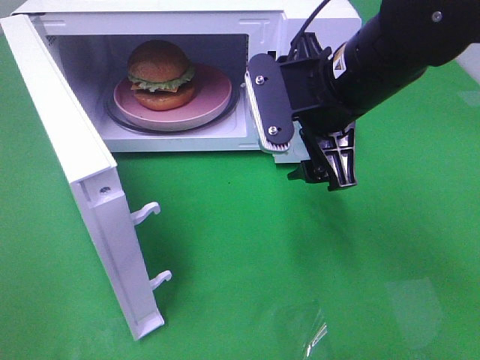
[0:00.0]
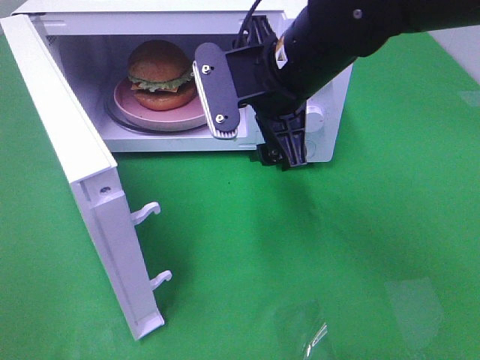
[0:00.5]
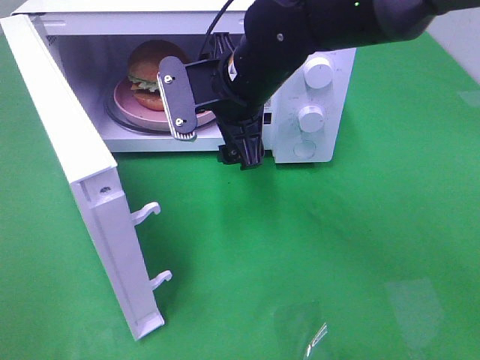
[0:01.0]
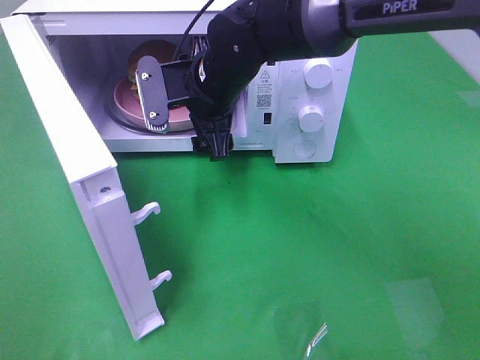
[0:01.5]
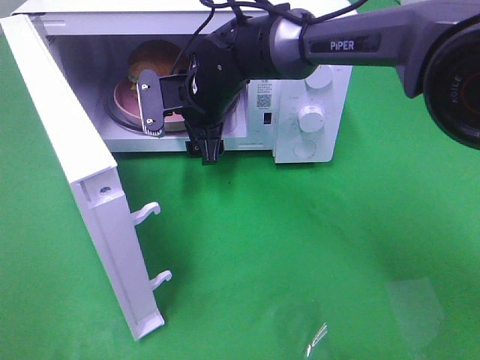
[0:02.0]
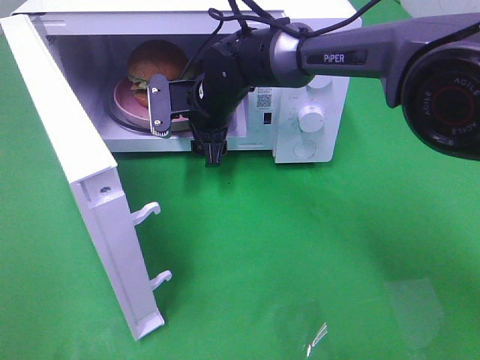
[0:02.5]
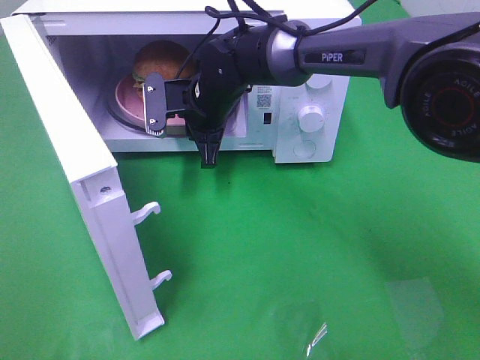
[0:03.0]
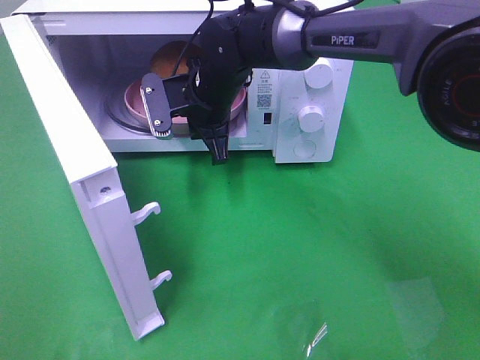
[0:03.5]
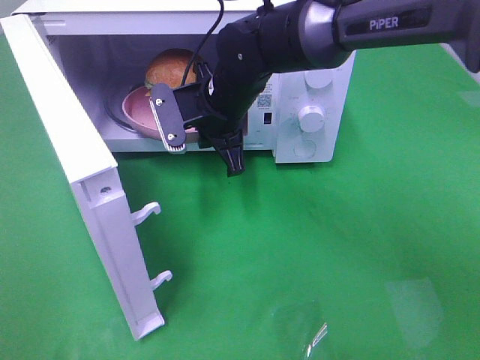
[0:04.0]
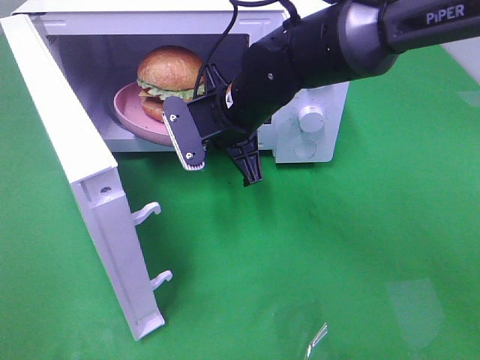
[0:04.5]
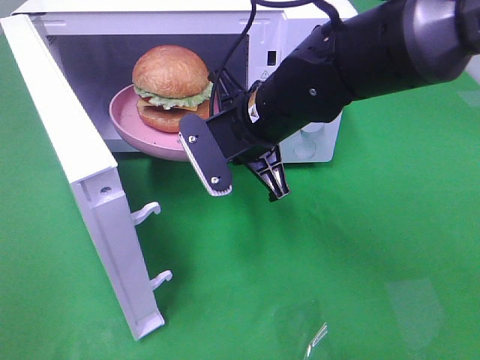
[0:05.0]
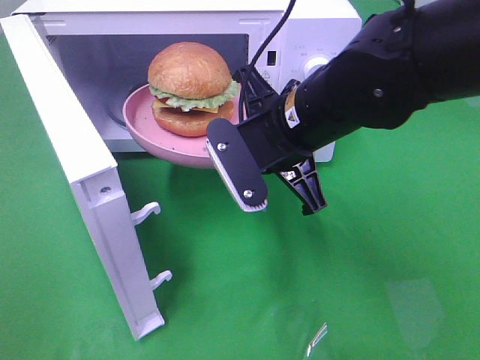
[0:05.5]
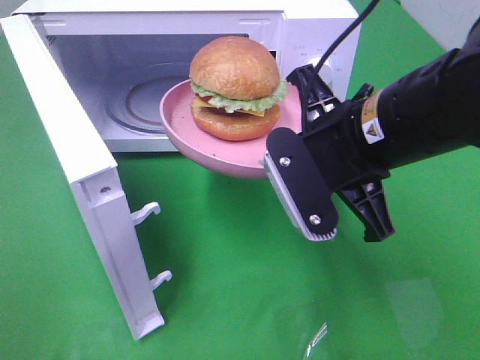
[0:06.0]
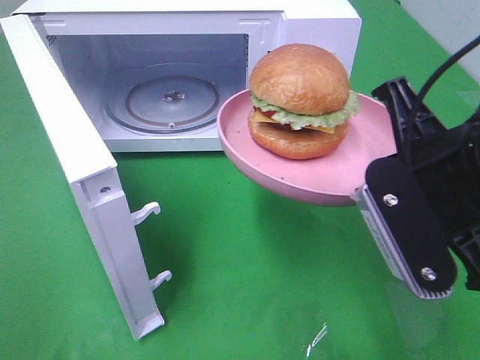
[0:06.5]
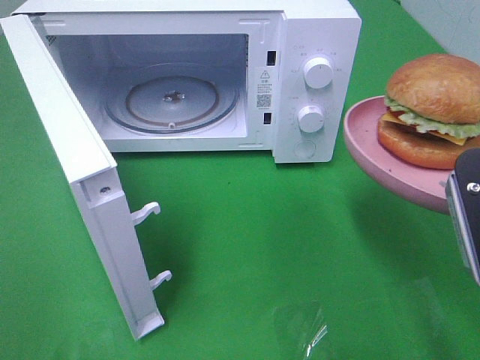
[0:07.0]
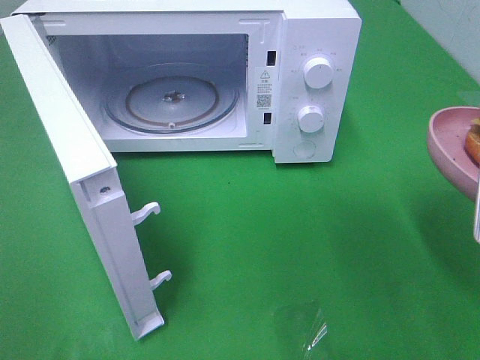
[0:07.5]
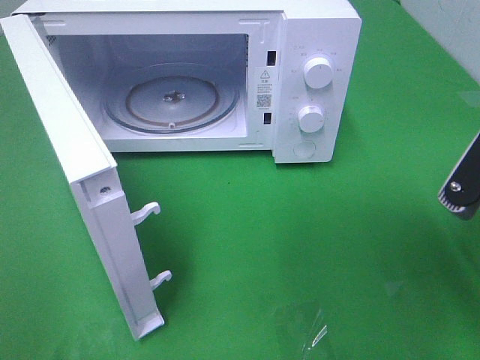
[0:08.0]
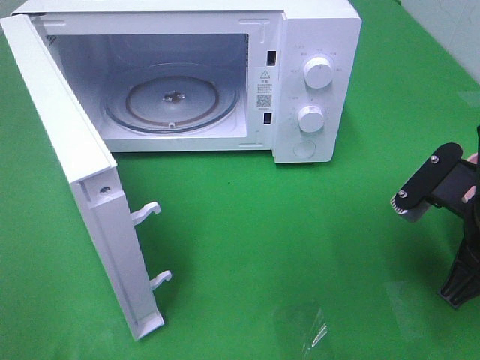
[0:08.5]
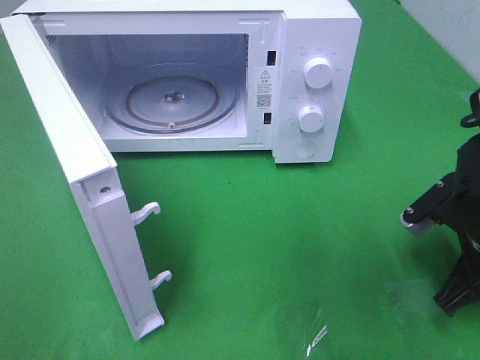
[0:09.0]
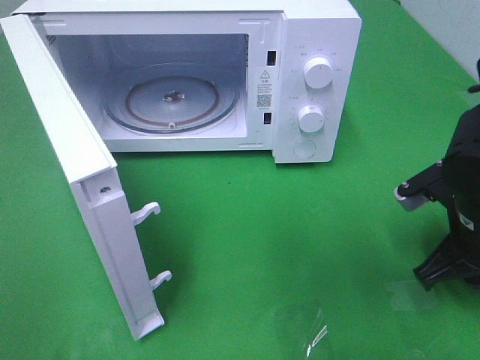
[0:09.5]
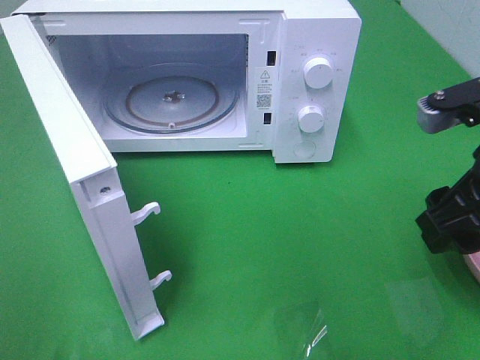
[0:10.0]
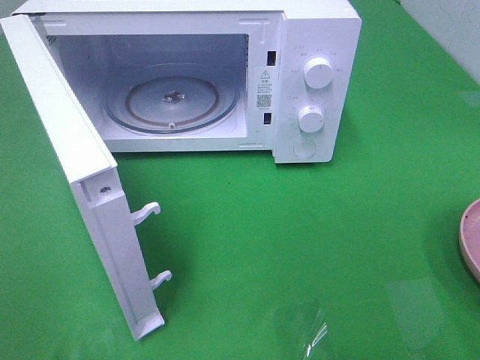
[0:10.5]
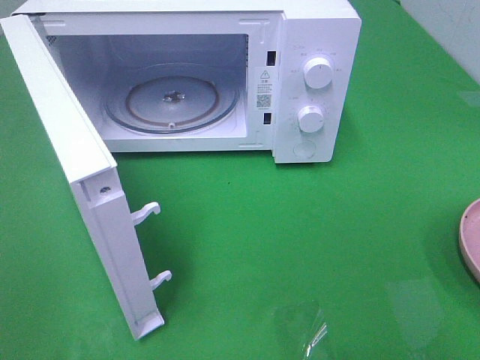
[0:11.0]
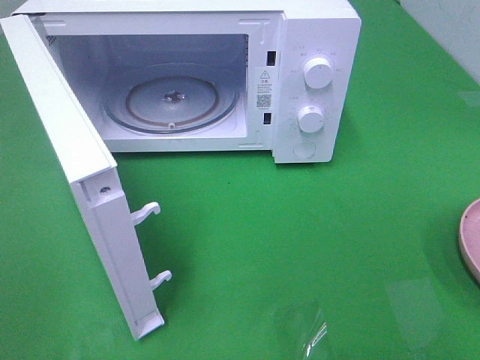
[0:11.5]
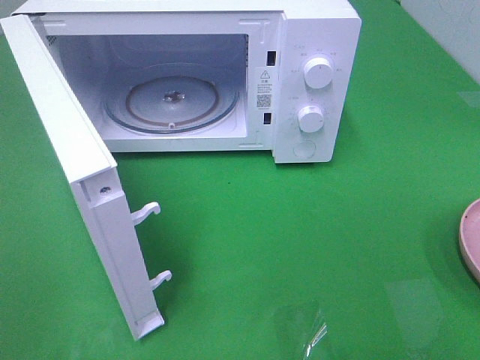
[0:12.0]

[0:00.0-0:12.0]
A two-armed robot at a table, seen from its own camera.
Task of the whole recording: Heat the burger.
Step, 0.0 to 3.0 s: Right hand: grab the plate with the hamburger.
Step, 3.5 to 9.5 s: Right hand: place the plate on the table.
0.0 to 2.0 s: The right gripper goes roughly 20 cm forward, to the left and downward.
2.0 to 4.0 s: The right gripper closes up.
4.0 to 6.0 s: The right gripper goes roughly 20 cm backward, to the right and upward.
6.0 to 8.0 s: The right gripper is displaced to the right and backward by approximately 15 cm.
8.0 to 10.0 s: The right gripper goes downward and returns, roughly 10 cm each way, and opens up.
10.0 to 12.0 s: The right gripper travels backward by approximately 20 cm.

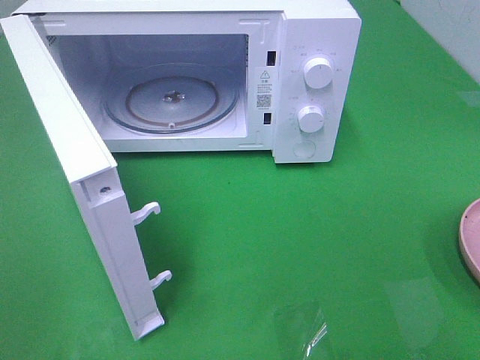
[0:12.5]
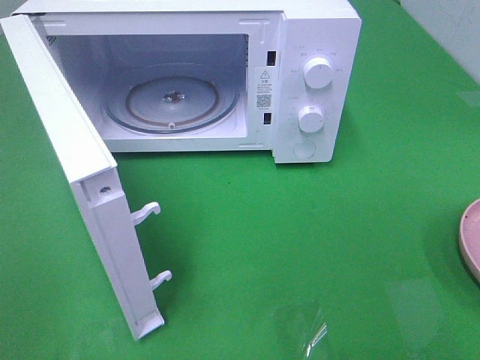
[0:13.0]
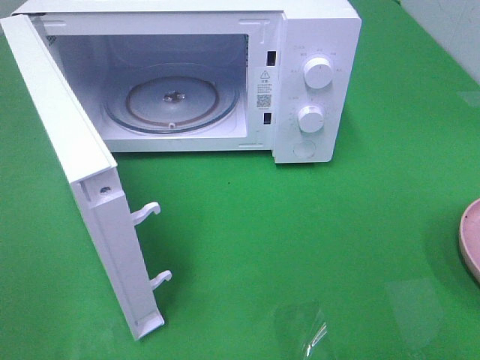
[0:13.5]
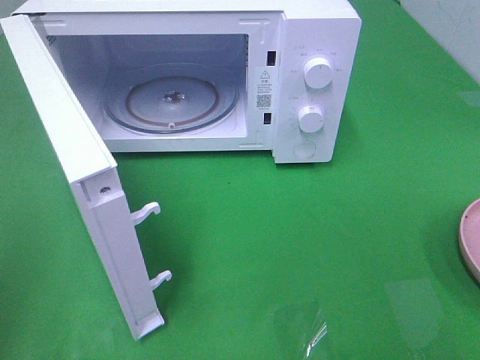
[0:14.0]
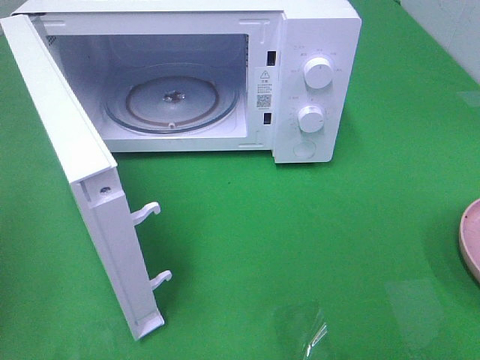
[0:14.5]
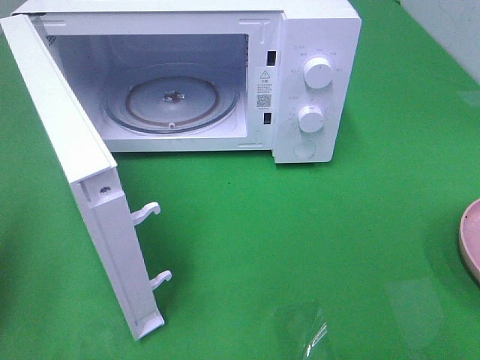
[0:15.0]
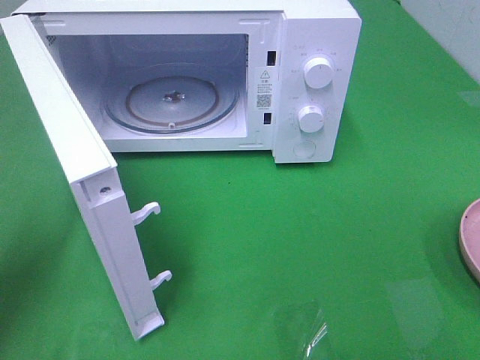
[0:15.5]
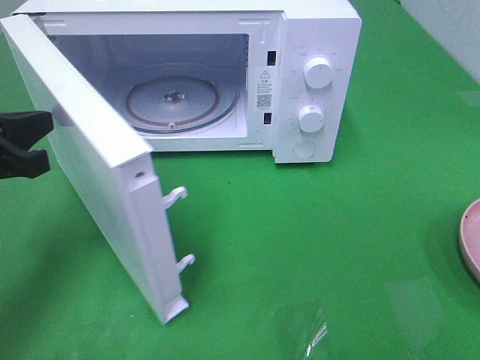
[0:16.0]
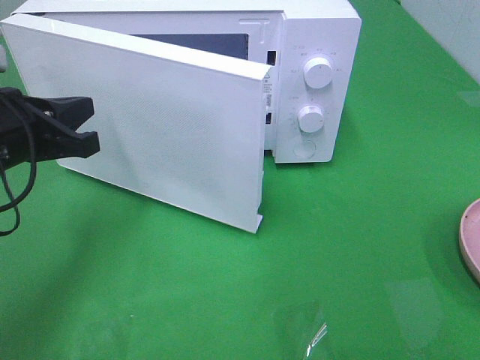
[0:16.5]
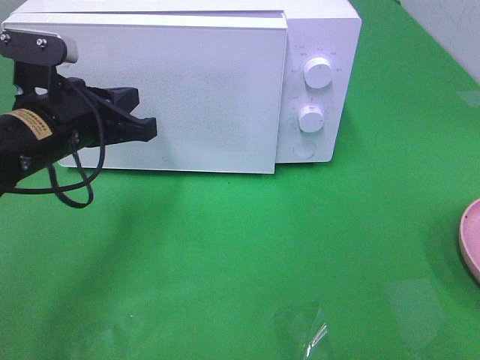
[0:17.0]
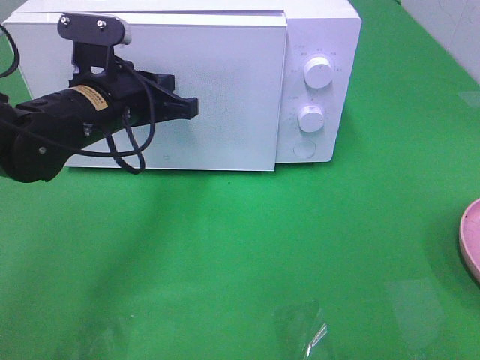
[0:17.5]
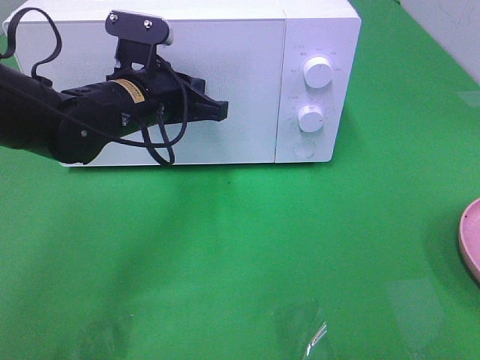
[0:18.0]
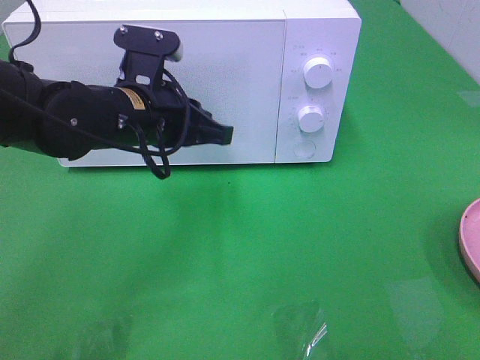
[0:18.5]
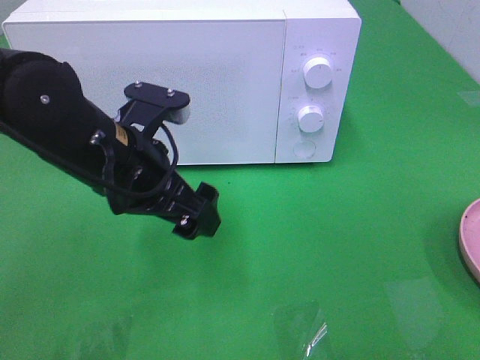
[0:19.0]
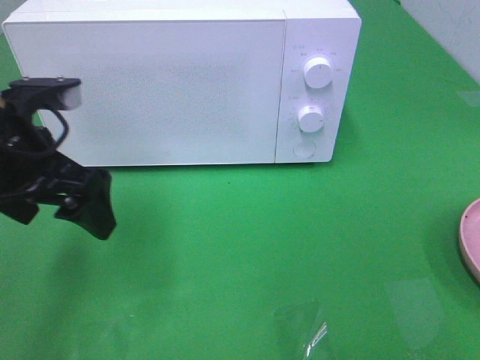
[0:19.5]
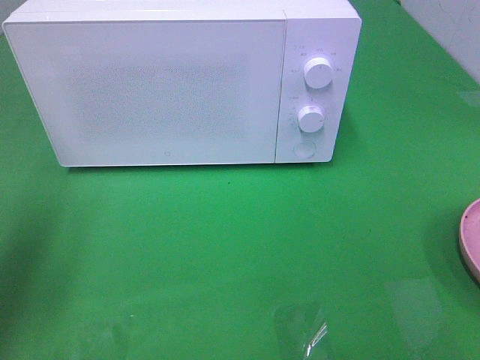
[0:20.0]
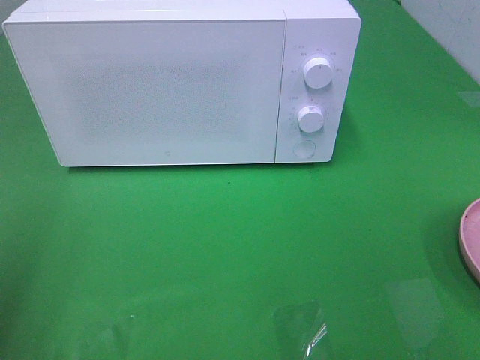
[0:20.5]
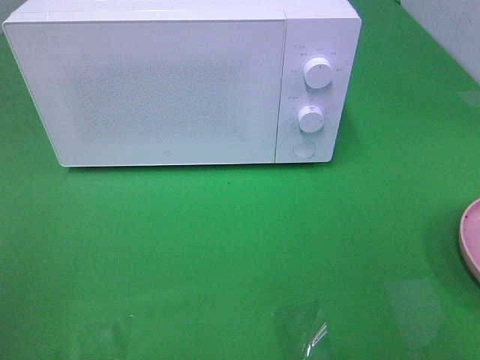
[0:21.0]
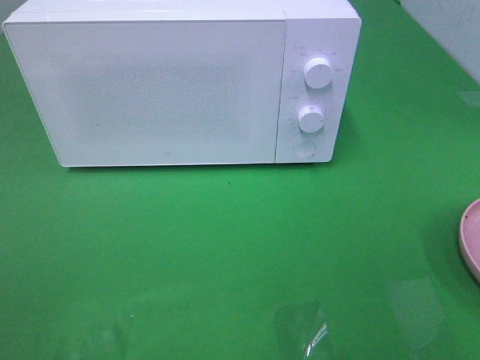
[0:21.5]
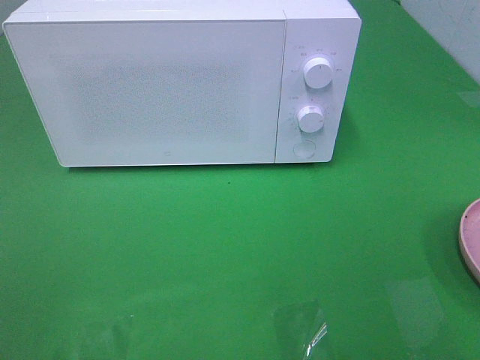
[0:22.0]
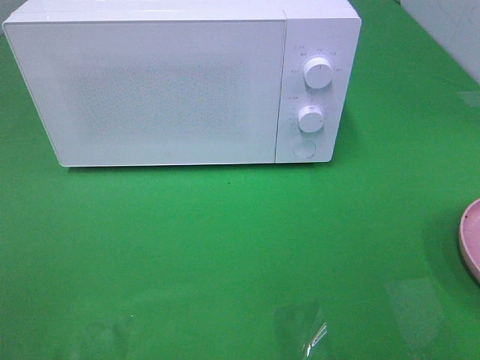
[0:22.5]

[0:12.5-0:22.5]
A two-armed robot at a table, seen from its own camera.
Task of the whole recording: Heat the burger.
Step, 12.5 to 18.5 s: Left hand: close the microwave door.
14.5 to 16.5 s: The left gripper moves forward, to the right and downward, approximately 20 cm.
16.5 to 18.5 s: The left gripper is displaced to the right by roughly 10 cm.
18.5 to 20.5 s: The left gripper is displaced to the left, backward and upward by some 30 cm, and opens its fingers.

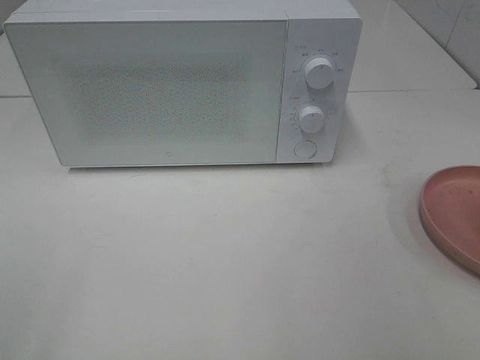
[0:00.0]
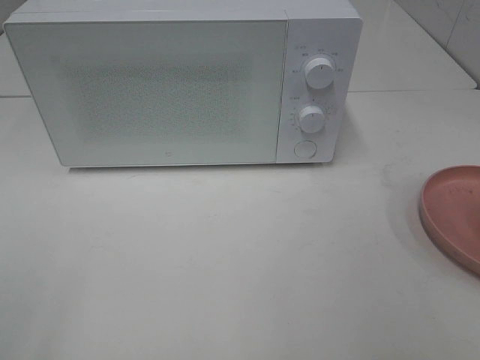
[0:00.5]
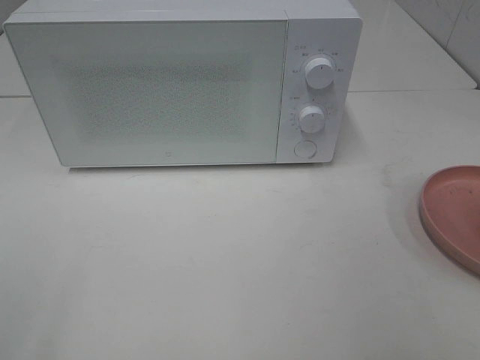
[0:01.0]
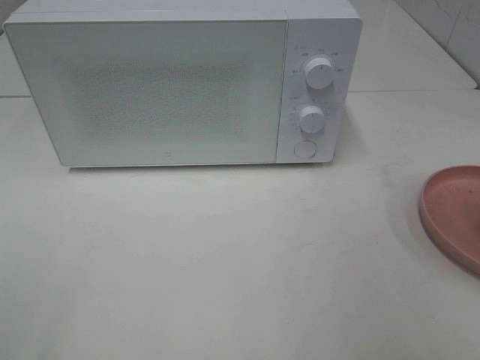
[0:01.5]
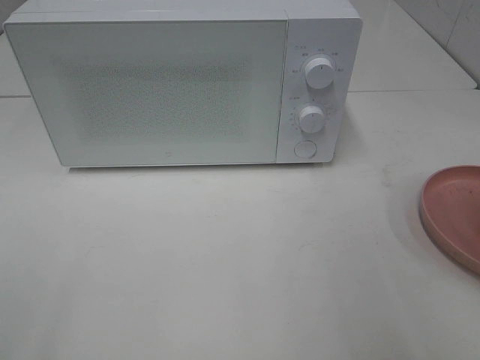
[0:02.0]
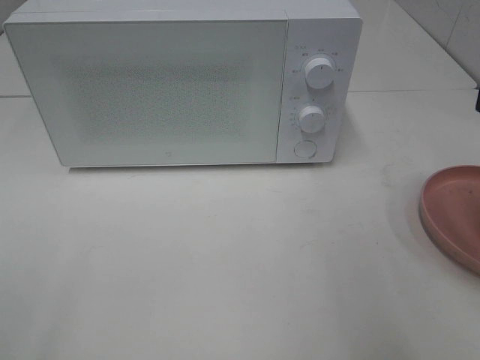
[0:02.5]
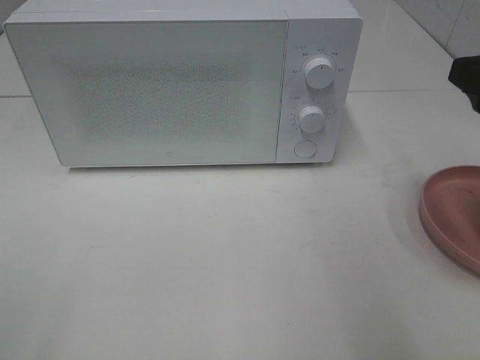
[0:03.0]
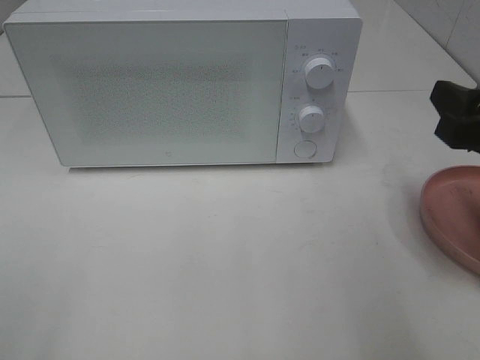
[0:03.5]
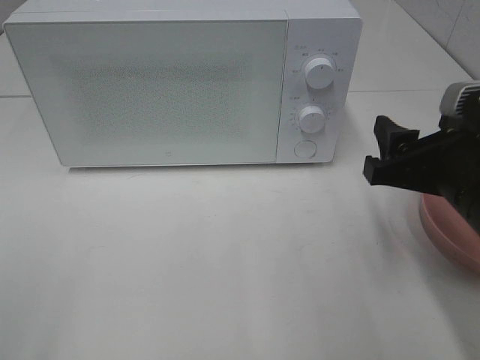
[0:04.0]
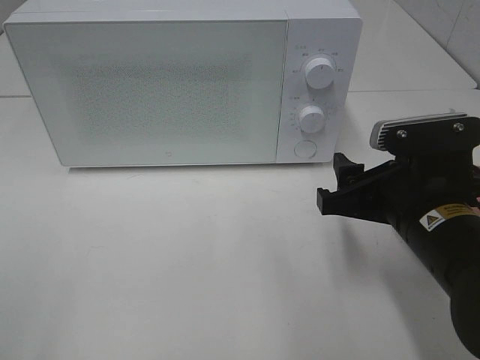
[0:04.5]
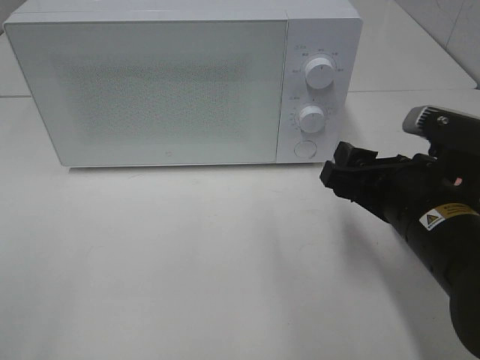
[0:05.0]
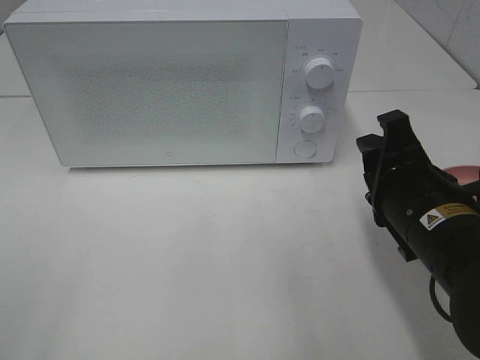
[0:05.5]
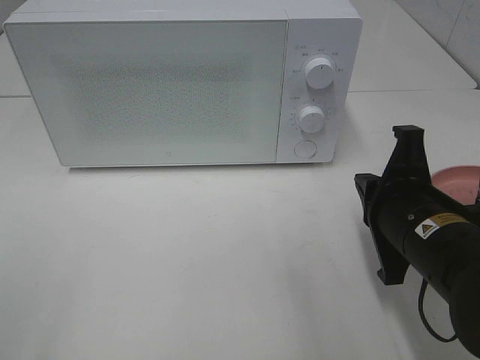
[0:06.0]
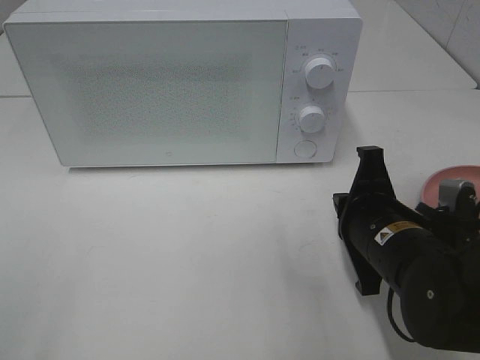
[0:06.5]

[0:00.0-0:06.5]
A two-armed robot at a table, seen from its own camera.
Task of the whole recording: Heat the burger.
2.0 to 4.5 s: The right gripper travels downward, to the left and forward by about 20 cm.
4.5 to 6.5 s: The right gripper closes.
